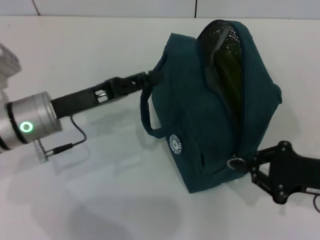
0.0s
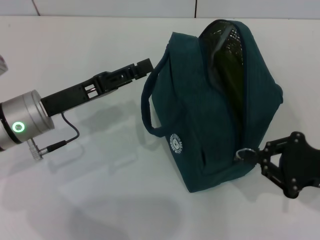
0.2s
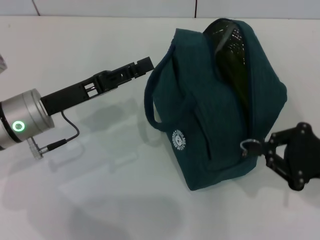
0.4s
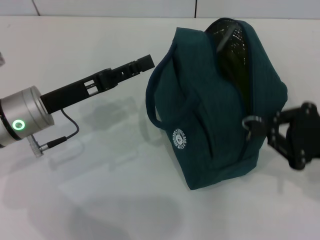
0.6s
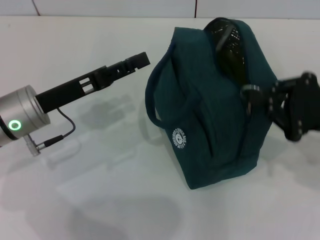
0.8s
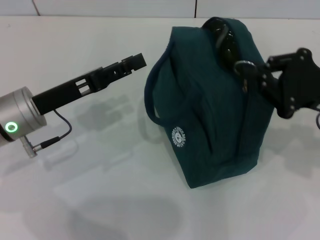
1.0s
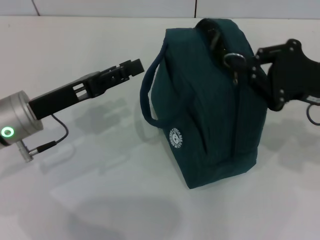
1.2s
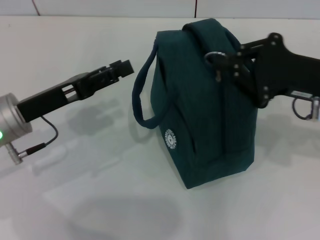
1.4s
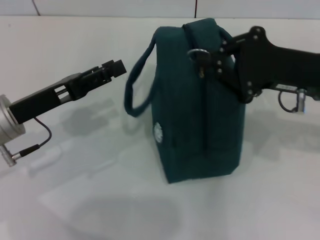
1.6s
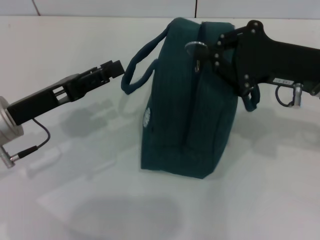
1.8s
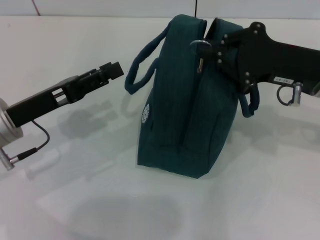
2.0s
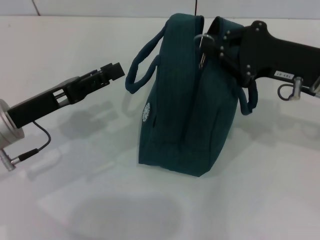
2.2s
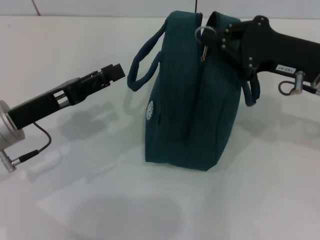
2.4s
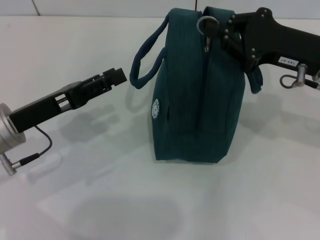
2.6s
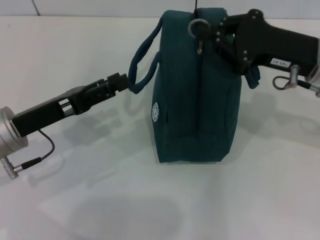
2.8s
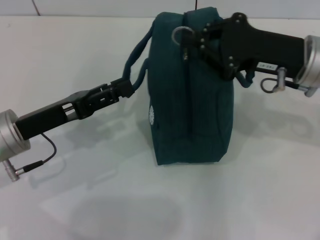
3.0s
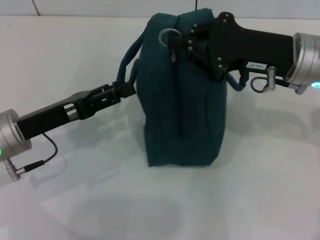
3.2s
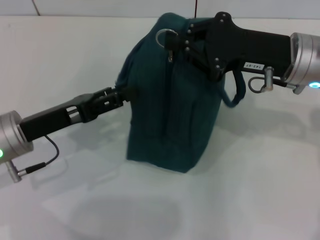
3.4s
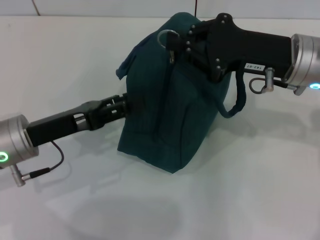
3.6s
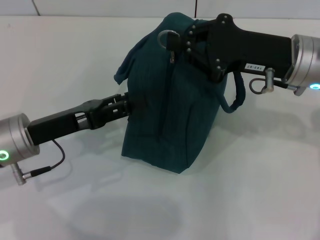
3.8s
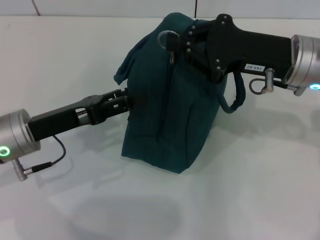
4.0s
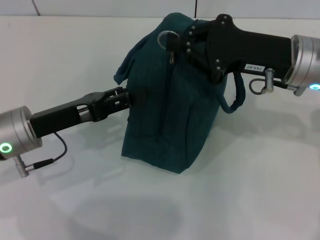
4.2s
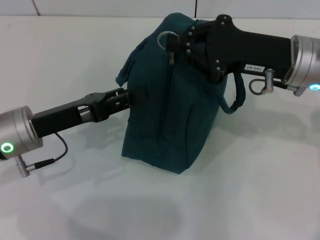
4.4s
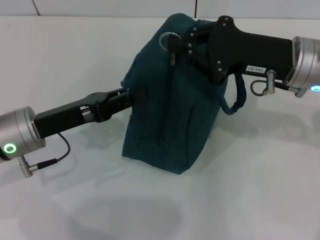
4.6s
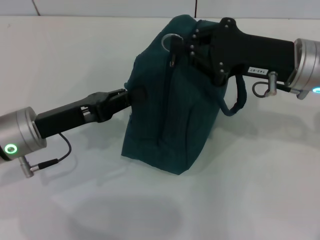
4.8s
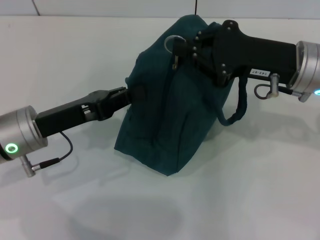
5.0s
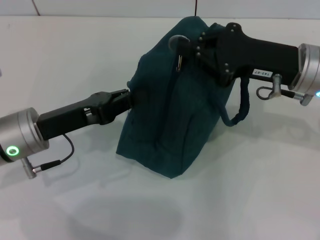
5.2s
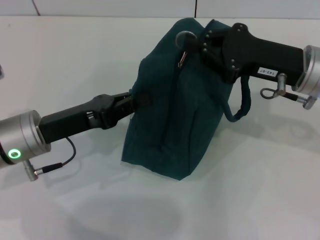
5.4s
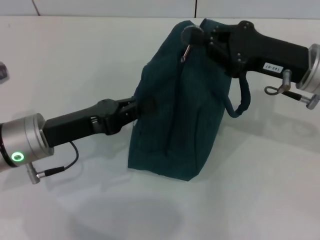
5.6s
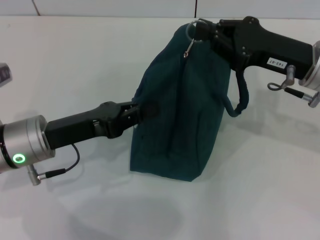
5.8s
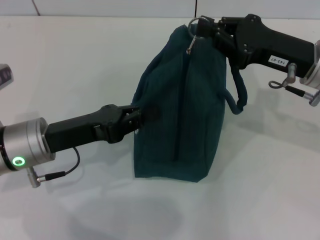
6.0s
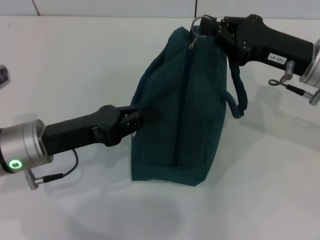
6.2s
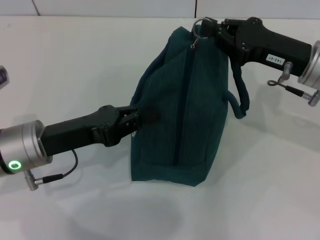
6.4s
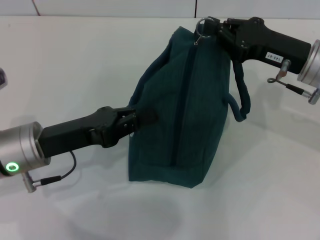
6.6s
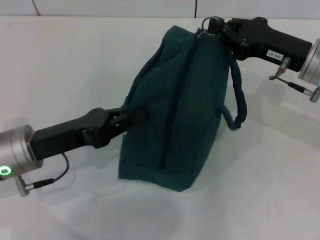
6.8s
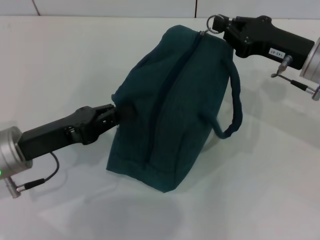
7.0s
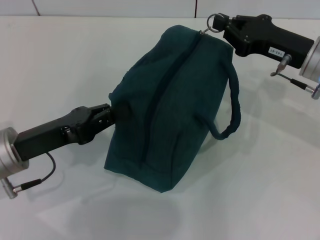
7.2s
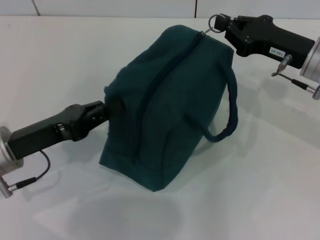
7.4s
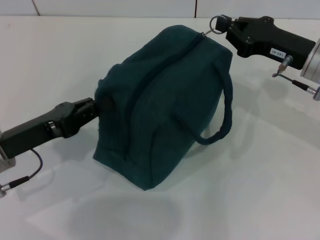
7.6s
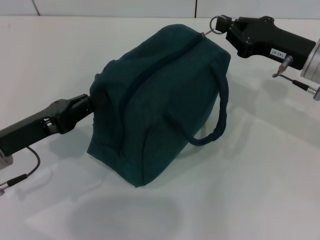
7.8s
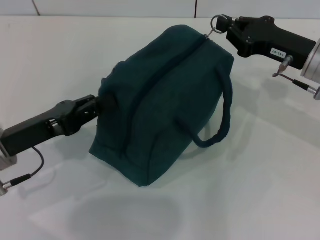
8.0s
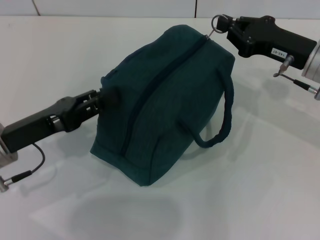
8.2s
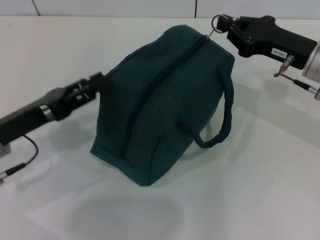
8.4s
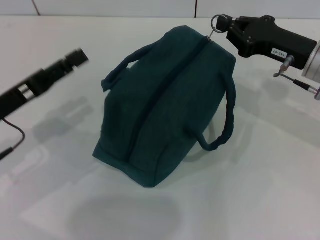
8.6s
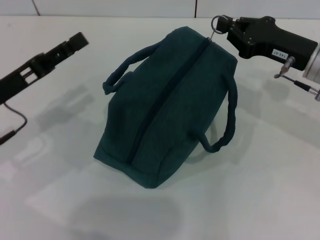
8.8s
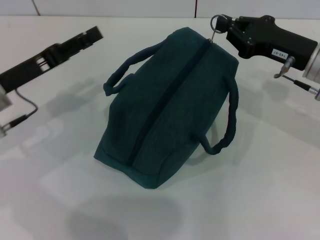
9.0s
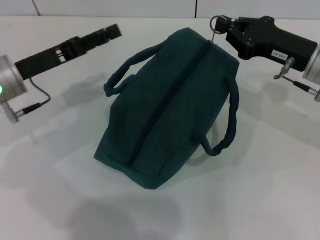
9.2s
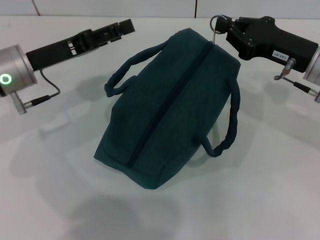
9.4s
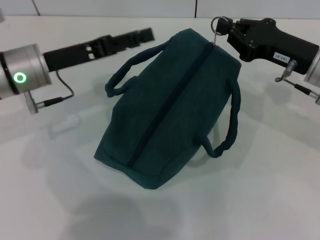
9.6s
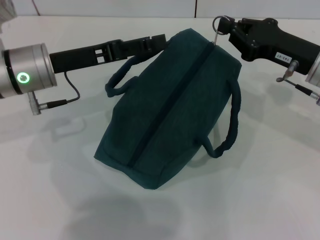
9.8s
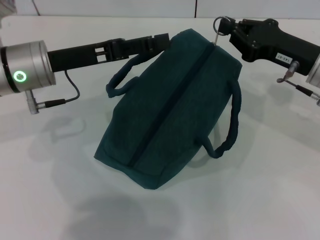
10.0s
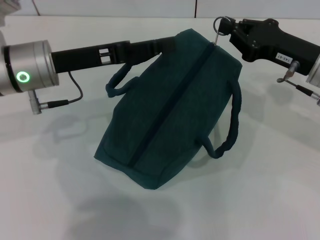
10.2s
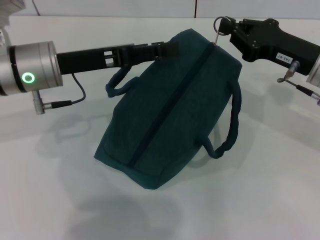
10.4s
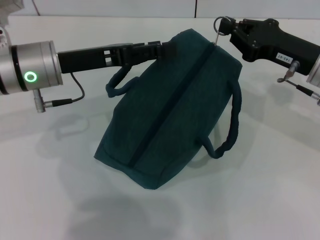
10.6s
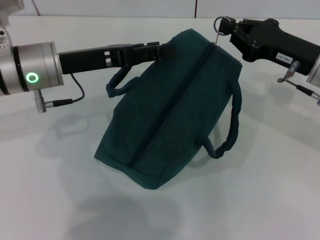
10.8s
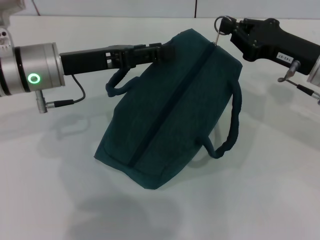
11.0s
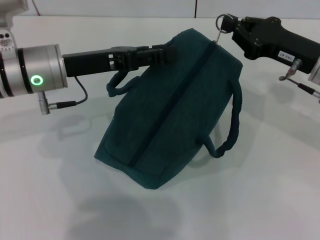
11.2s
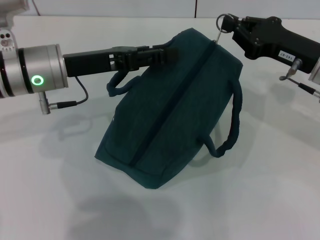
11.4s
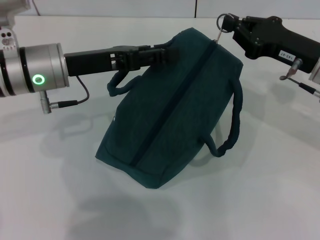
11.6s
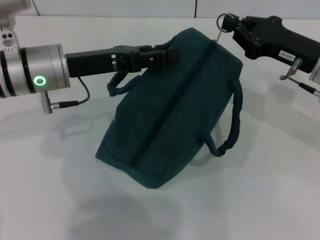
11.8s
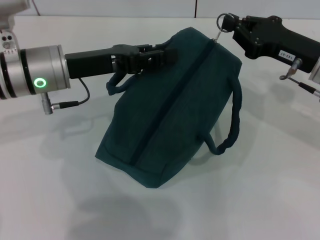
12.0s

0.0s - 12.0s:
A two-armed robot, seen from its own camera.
0.0s - 1.6s: The right gripper is displaced upward, forward and to the left by about 15 cm. The left gripper opens its fingers.
3.0s - 4.4s: There are only small adjustments of the grippers.
4.4s - 6.0s: The left gripper closes its fingers.
6.0s - 7.6s: The left gripper moves roughly 5 cm.
7.6s - 9.0s: The left gripper heads forward, covering about 5 cm, and opens.
9.0s - 10.4s: The left gripper is displaced to the right by approximately 5 cm.
10.4s - 12.0s: The grippers make only small movements.

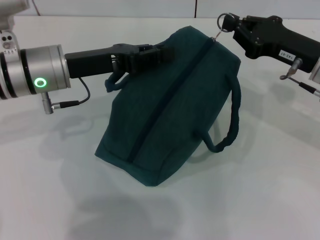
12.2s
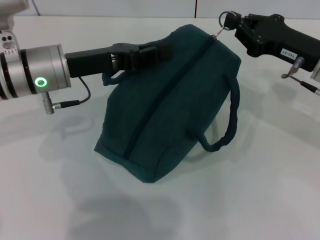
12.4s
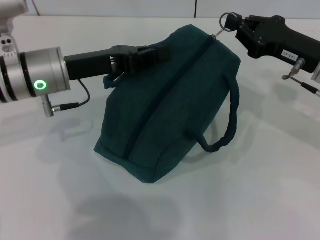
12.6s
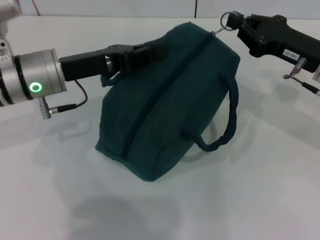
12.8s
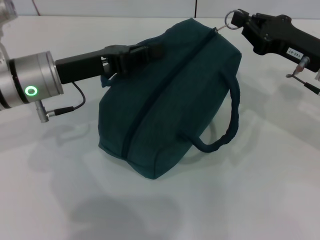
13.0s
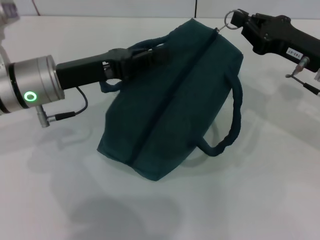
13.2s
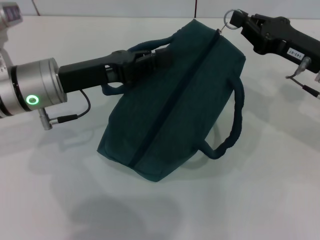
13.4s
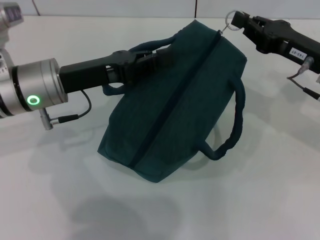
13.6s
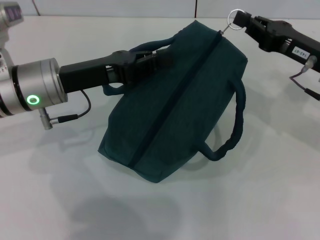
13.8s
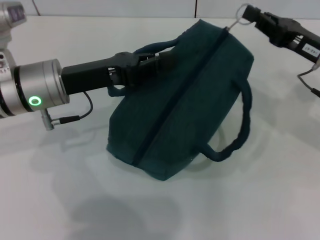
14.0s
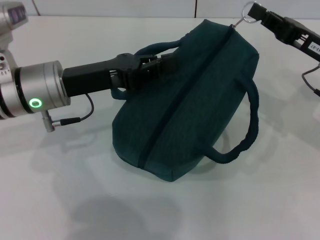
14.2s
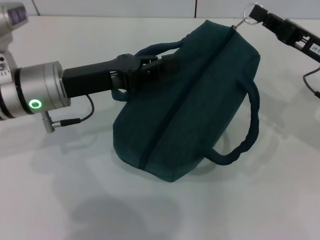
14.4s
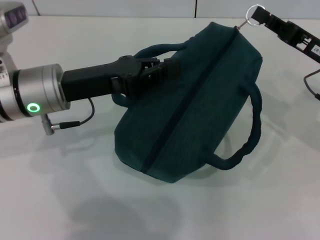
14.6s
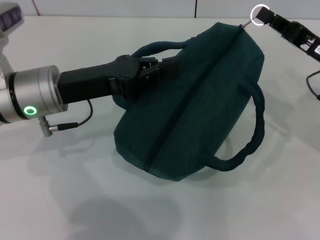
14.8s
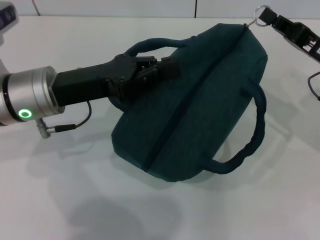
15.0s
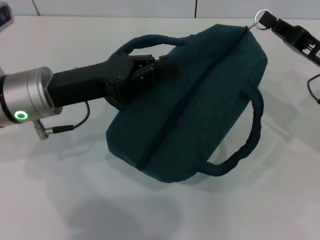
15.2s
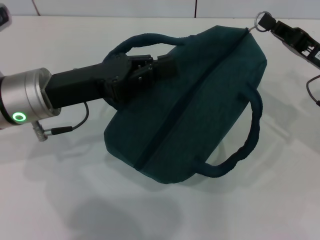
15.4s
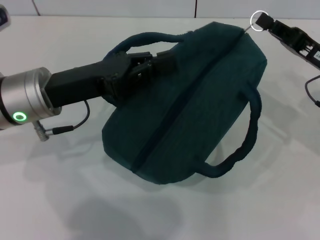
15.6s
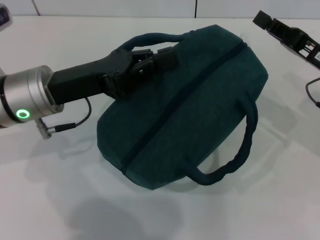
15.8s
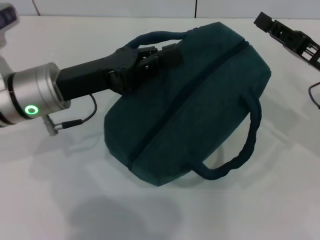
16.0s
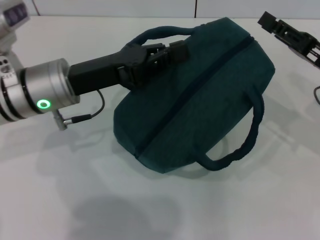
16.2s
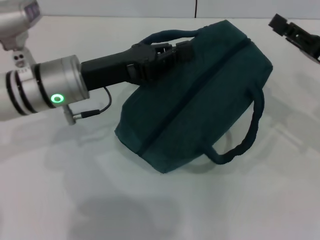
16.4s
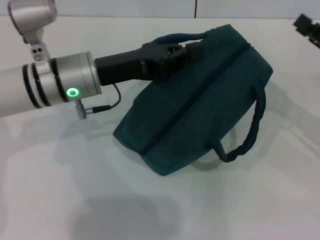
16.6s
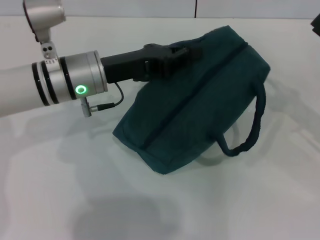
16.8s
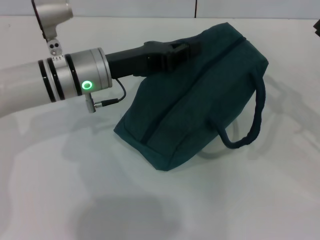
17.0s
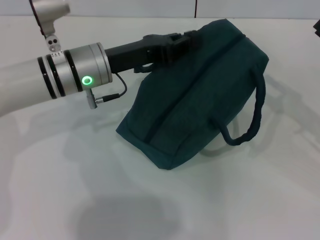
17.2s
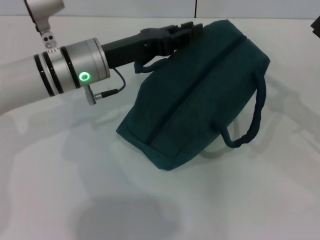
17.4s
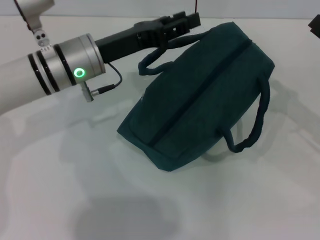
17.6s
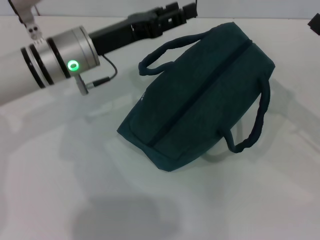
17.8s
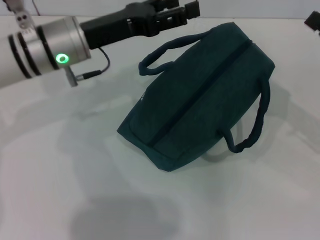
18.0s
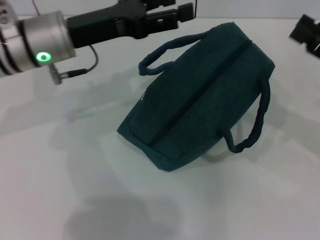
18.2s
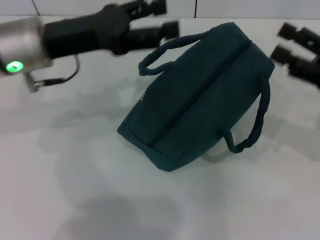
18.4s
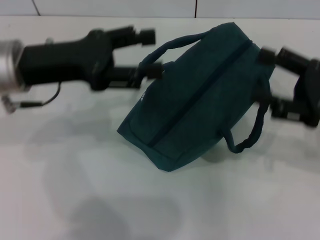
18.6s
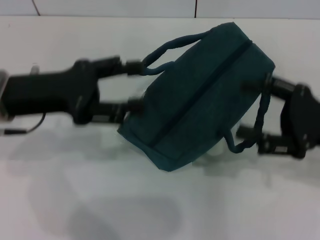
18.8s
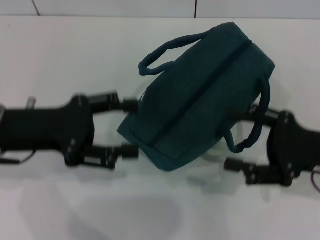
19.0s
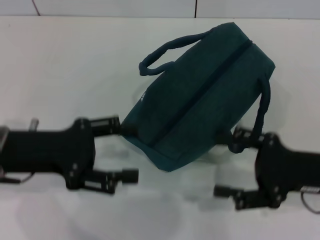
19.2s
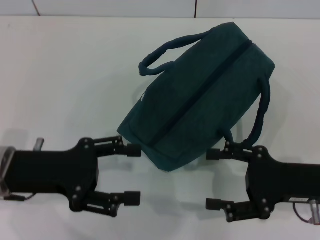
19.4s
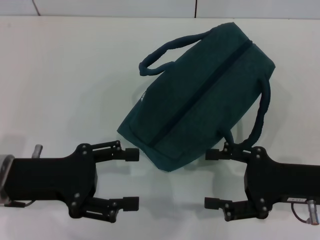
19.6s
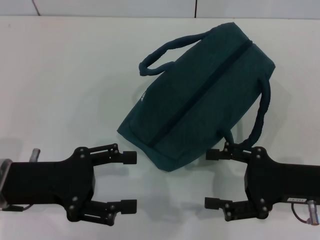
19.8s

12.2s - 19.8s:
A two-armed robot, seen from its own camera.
Step, 12.2s - 16.0s: Zip up the lunch bag with your right hand.
Step, 16.2s - 17.4s: Hold the lunch bag with your left hand.
12.2s - 13.8s: The left gripper closes its fingers.
15.2s - 16.8s: The right gripper shifts some 5 cm to the right, and opens up. Meanwhile the left gripper goes about 5 cm forward.
16.8s - 18.2s: The left gripper changes place by about 5 cm, and opens its fingers.
18.2s - 19.8s: The right gripper travels to the left, backward and downward by approximately 10 cm; the left gripper goes roughly 15 cm backward, downward and to the left.
